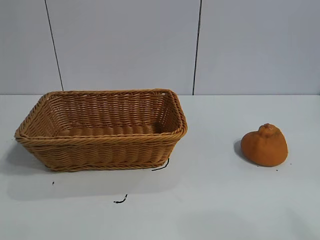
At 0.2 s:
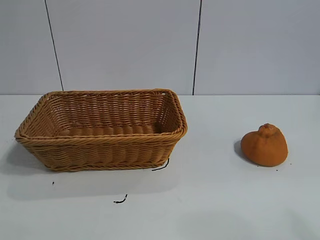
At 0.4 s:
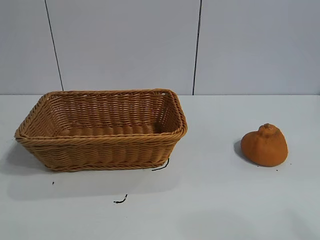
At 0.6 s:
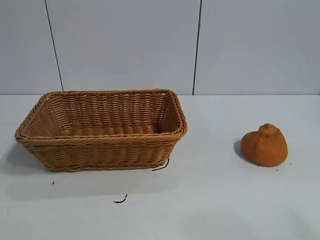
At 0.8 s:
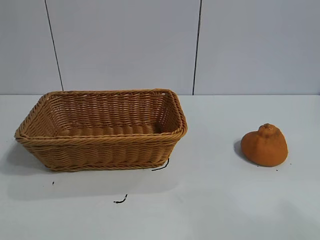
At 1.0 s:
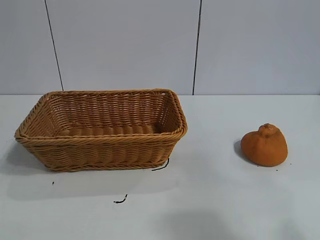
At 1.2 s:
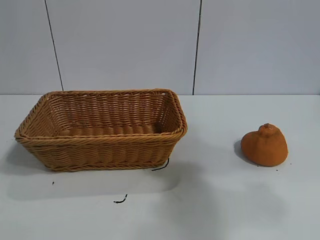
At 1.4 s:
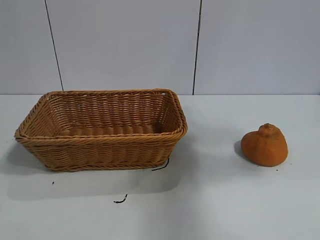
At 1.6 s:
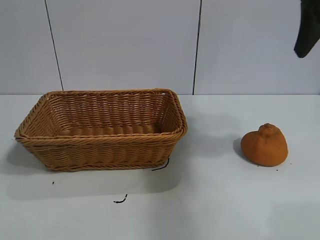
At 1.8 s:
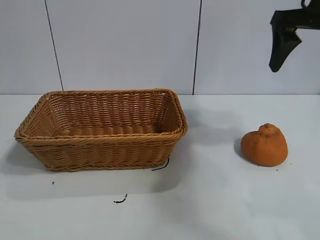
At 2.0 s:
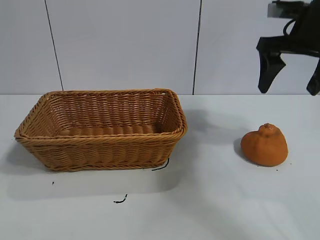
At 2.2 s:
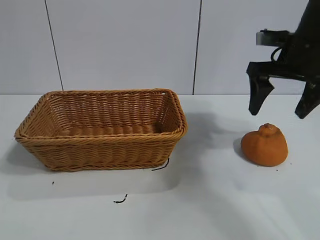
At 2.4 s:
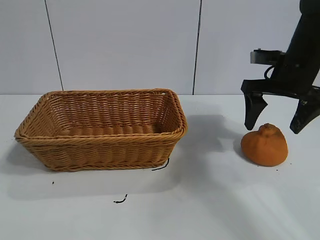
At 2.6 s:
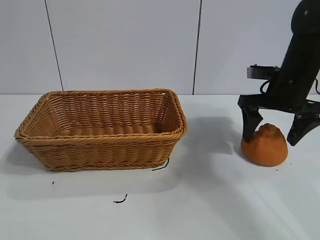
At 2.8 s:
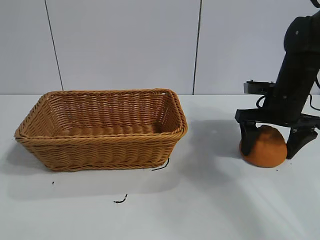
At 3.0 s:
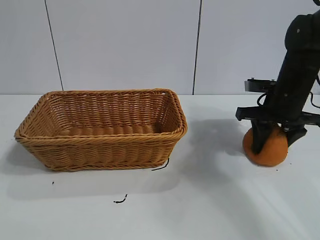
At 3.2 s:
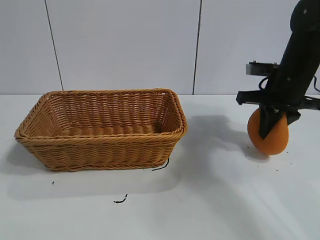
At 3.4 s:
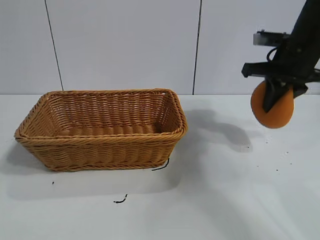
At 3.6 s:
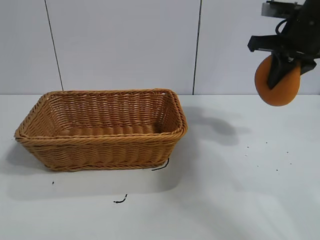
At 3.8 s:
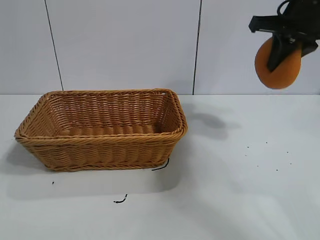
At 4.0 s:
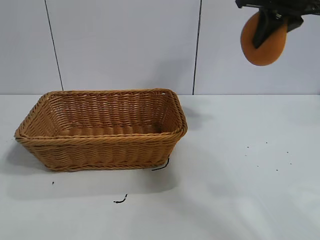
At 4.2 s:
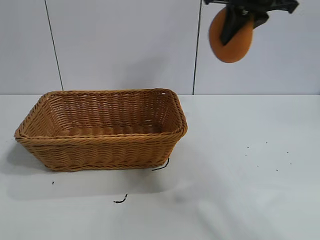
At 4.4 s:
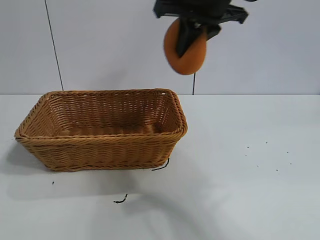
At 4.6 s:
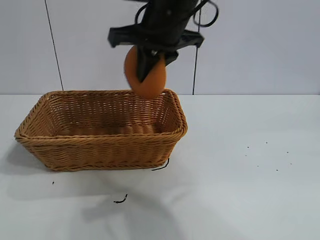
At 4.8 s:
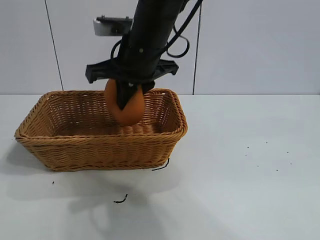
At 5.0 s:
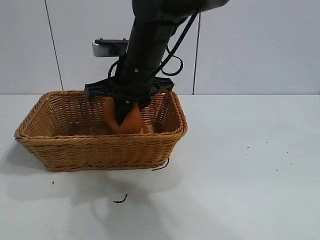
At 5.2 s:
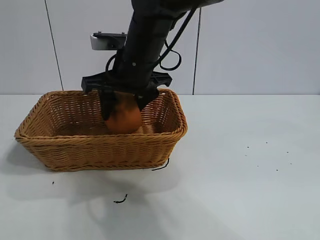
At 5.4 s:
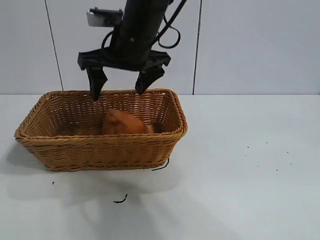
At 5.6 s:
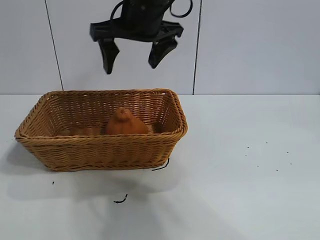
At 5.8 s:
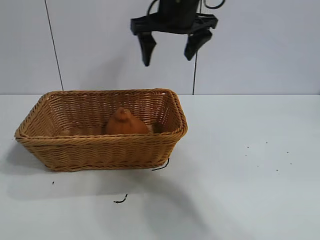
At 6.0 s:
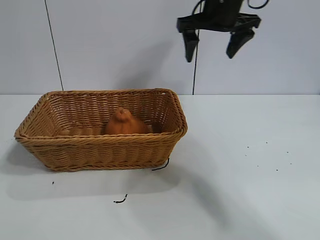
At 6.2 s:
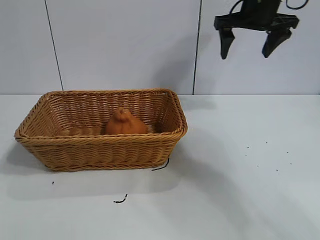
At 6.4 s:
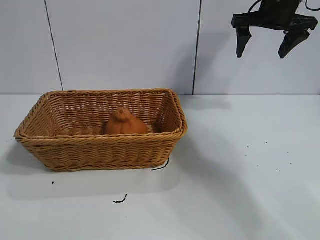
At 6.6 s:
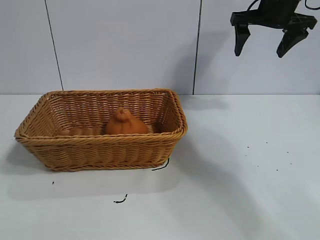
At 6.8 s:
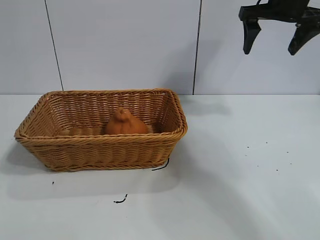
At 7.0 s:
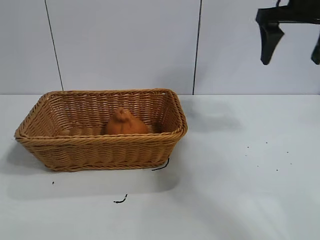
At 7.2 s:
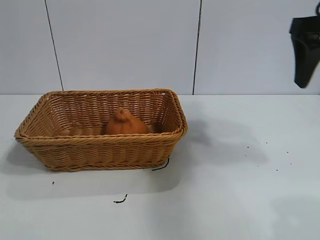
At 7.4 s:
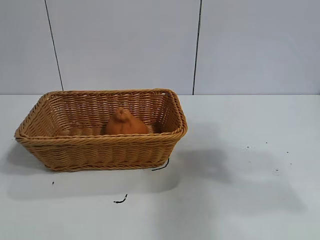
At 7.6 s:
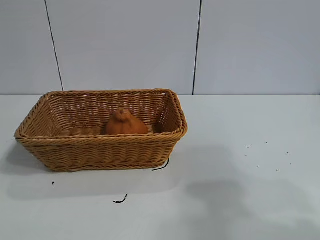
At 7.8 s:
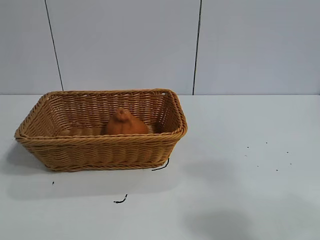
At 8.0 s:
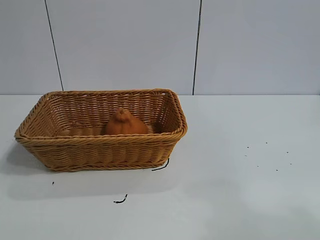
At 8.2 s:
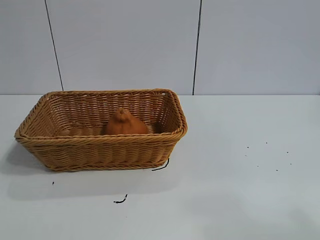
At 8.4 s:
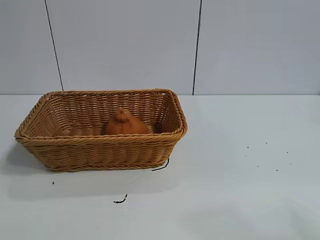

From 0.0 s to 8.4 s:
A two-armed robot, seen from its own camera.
Task of the whole recording: pick up the orange and put it into the basket.
Step, from 0.8 s to 3.0 s: Grasp the orange with right gripper.
Step, from 3.4 s to 5.2 s: Place the orange in the basket with right gripper.

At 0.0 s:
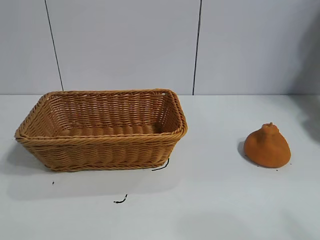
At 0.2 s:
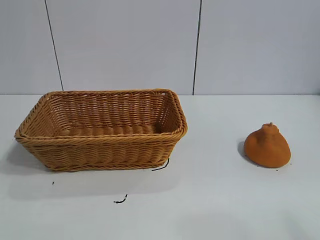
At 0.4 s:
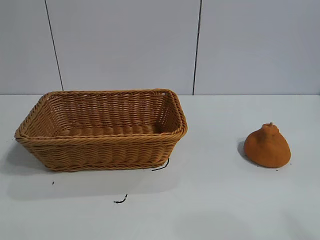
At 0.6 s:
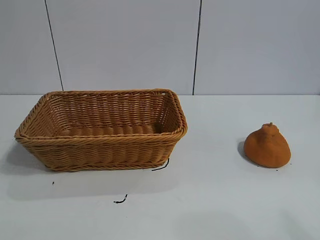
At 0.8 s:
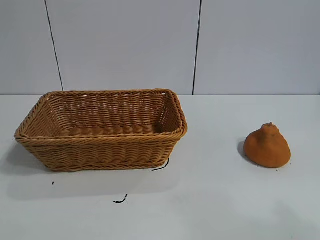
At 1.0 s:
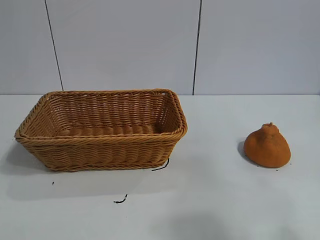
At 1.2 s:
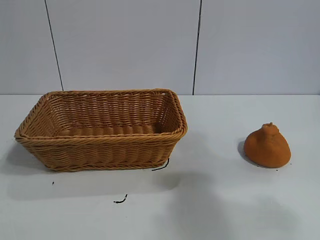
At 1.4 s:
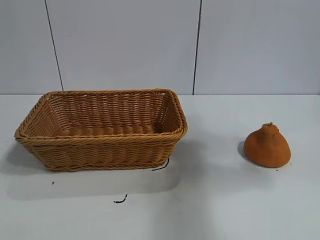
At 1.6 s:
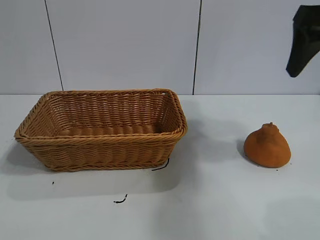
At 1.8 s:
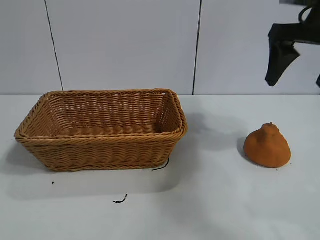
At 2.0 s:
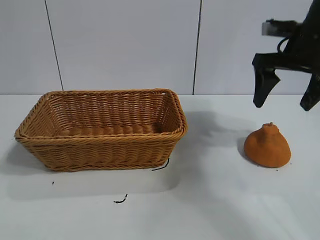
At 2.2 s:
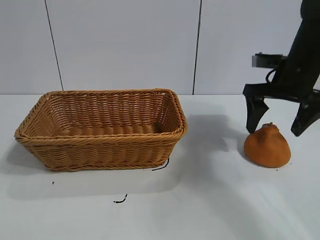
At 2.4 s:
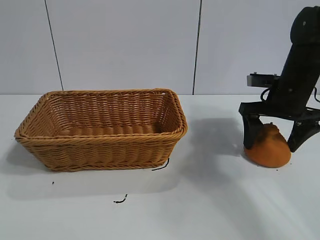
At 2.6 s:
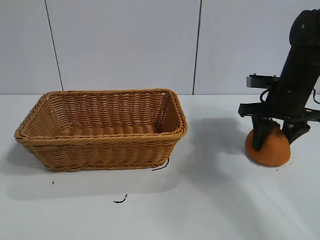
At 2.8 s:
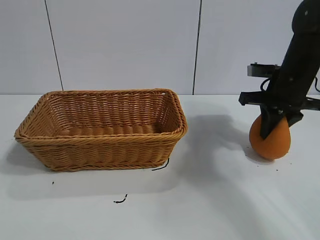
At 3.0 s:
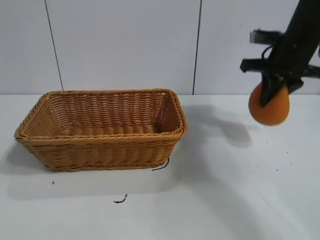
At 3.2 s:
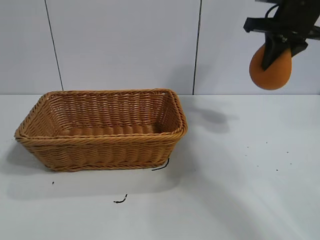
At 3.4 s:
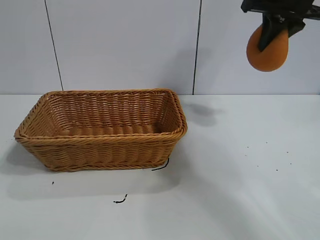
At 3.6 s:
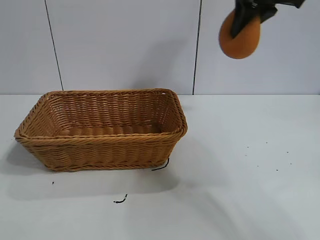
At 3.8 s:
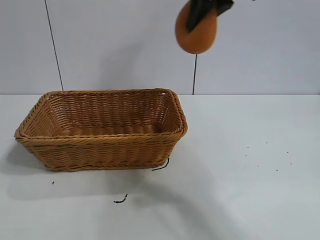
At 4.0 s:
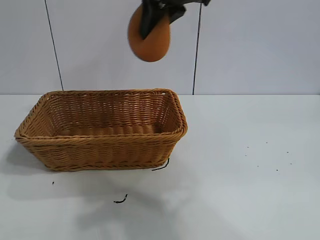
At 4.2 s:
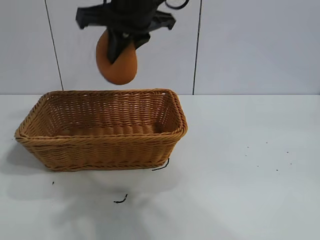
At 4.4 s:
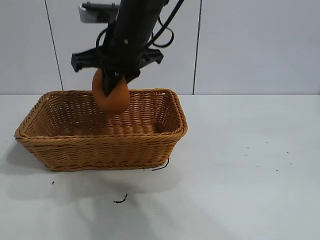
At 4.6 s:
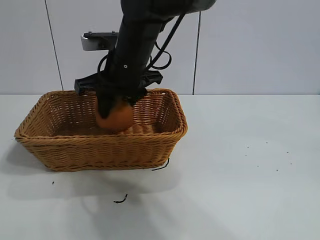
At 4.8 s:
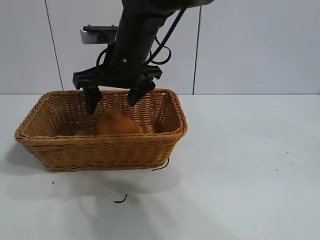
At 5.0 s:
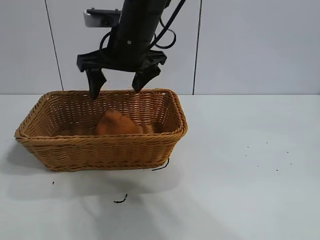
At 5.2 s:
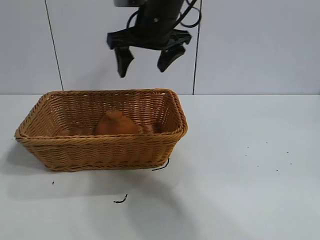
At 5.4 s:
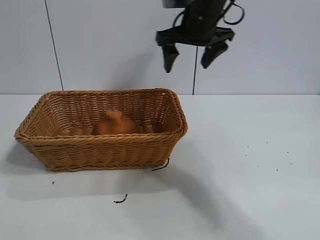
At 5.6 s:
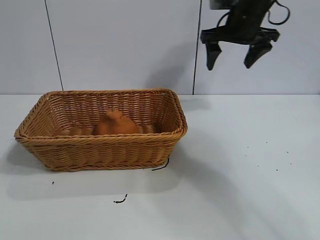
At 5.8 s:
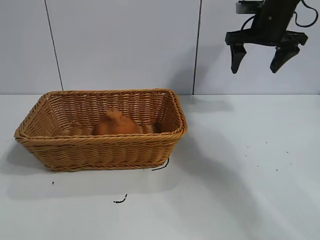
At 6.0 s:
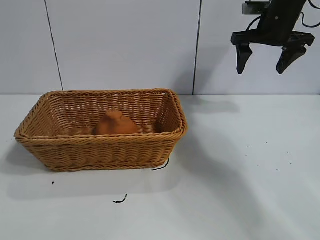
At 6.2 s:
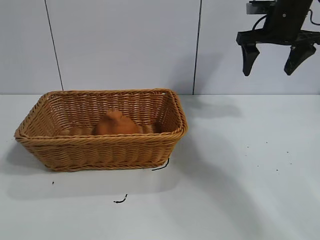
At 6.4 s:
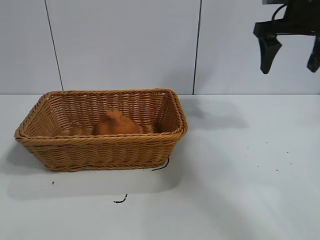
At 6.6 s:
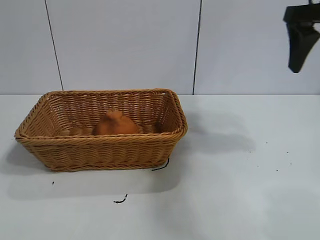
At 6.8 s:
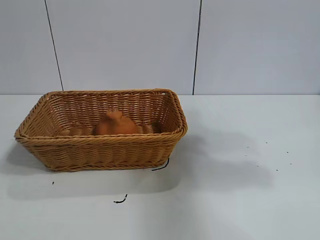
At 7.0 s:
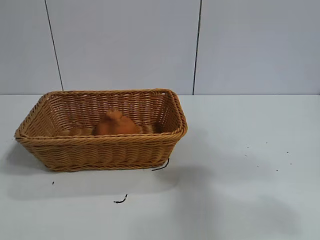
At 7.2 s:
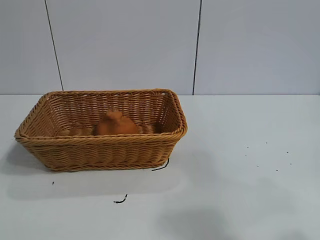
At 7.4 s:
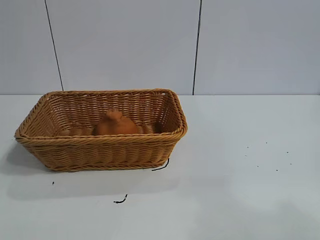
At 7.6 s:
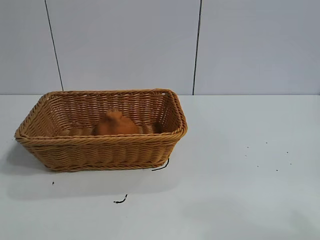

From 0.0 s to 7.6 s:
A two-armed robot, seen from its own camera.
Task of the whole recording: pick up the orange and put it into the basket.
Step, from 0.8 s to 2.8 s: Grasp the orange with right gripper.
Step, from 3.0 s to 4.8 s: Place the orange in the basket with right gripper.
